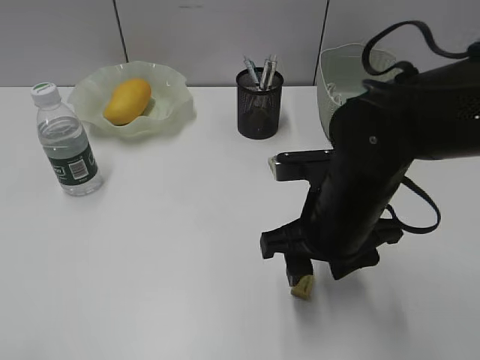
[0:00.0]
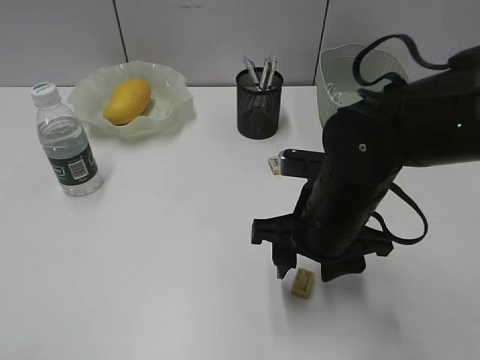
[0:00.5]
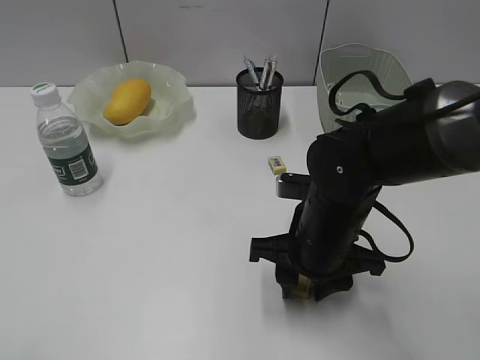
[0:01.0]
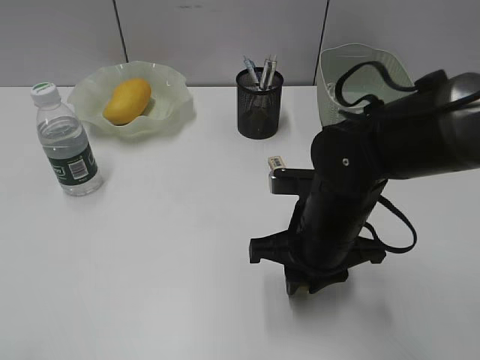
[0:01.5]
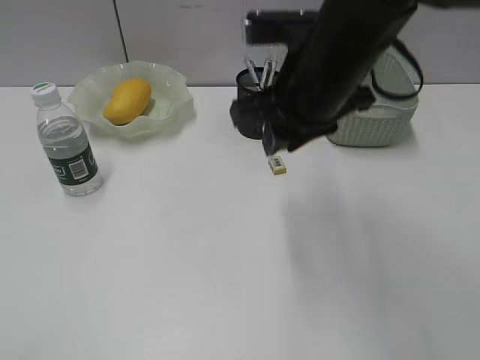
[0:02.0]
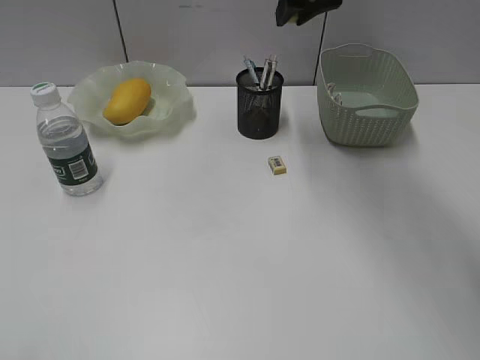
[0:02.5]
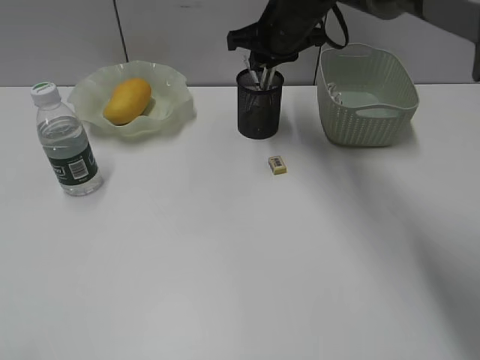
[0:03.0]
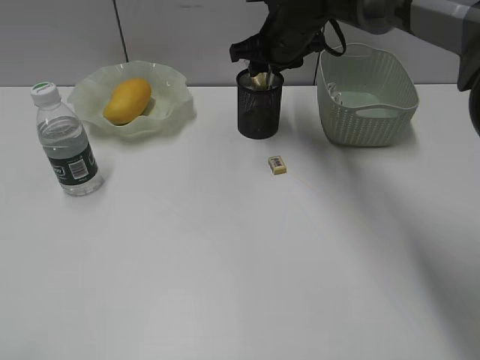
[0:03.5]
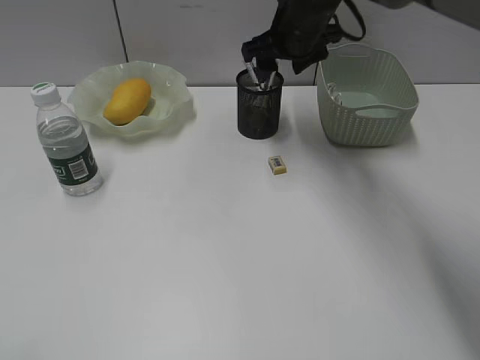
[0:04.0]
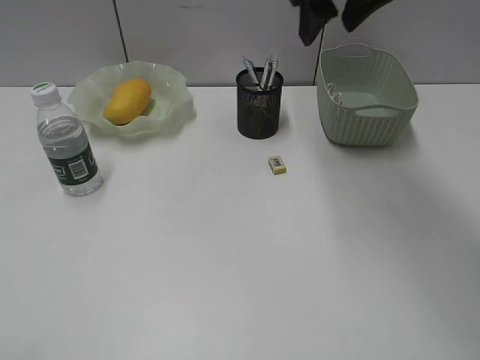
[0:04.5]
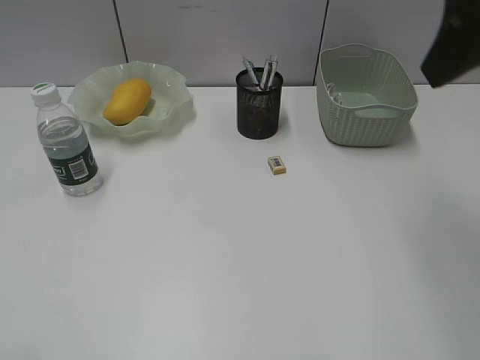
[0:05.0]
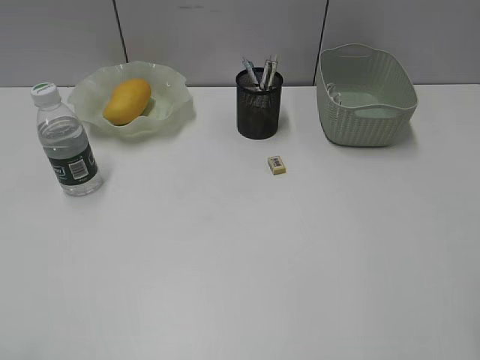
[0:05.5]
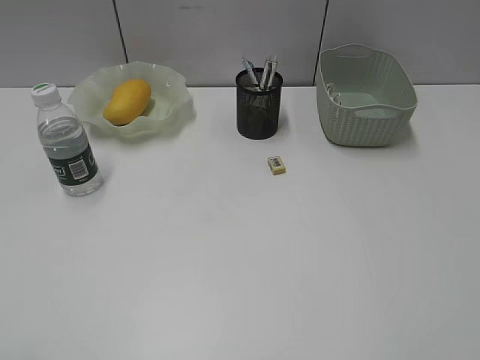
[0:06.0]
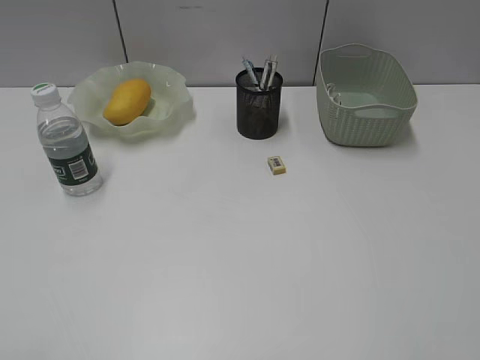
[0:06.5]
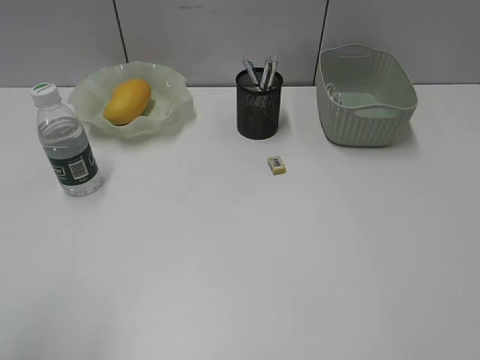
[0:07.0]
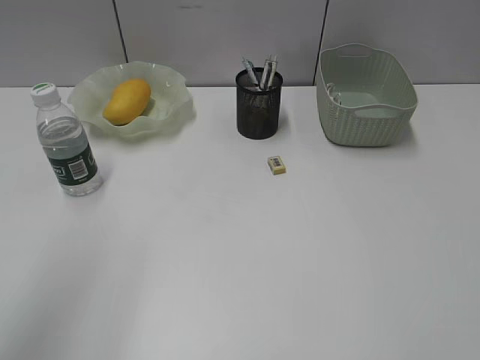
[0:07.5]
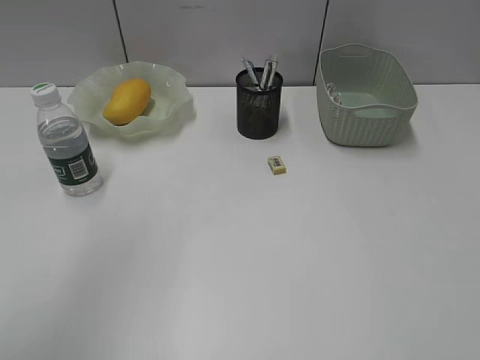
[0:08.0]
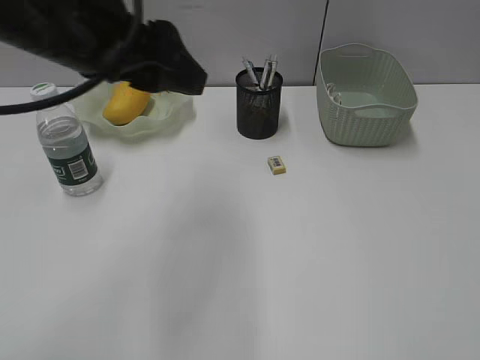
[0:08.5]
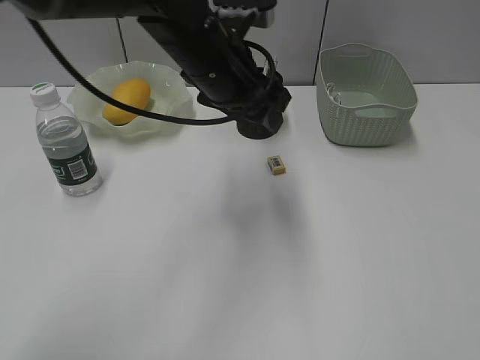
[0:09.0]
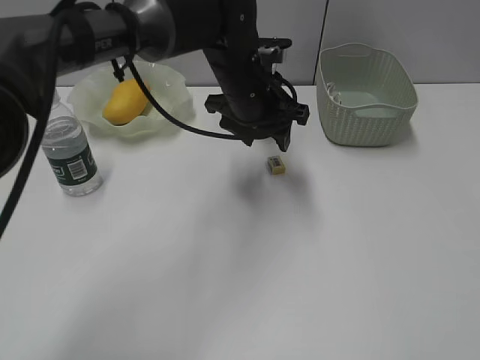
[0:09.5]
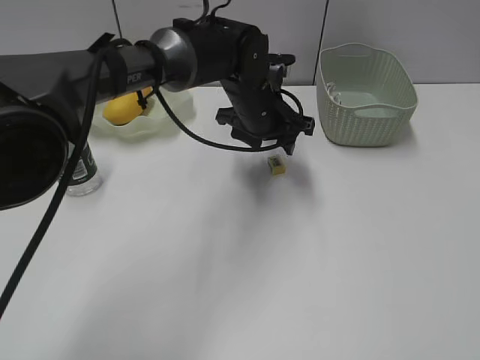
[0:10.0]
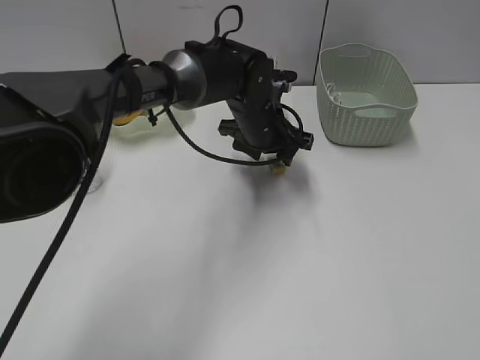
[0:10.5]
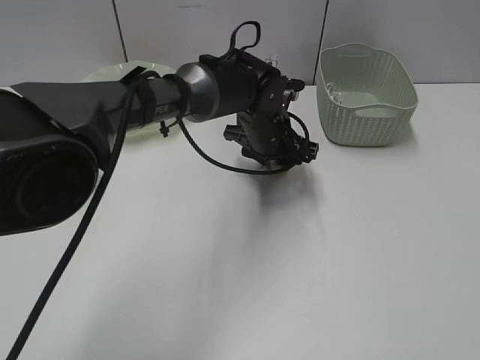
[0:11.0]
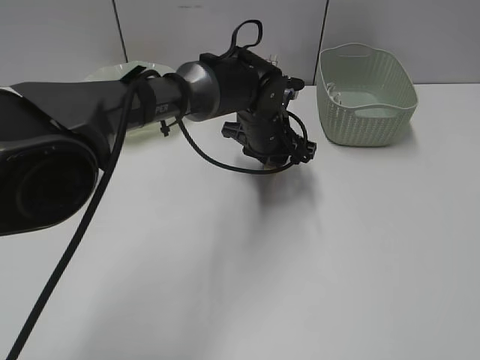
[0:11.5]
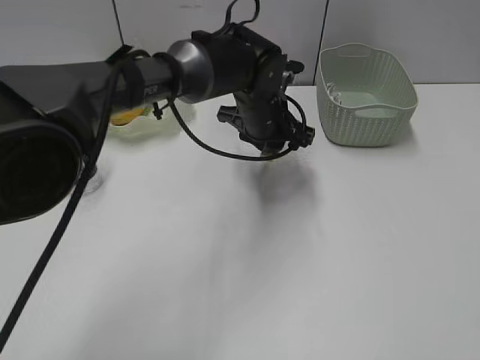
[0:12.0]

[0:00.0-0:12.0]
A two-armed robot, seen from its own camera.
Step, 0:01.5 to 0:03.5: Place the eraser in pen holder with right gripper.
Step, 0:04.0 to 0:11.5: Grasp the eraser with left gripper.
0:00.0 to 0:02.0: The right gripper goes roughly 10 cm upward and forward, and closes up.
0:02.0 to 0:04.0: The right gripper goes approximately 20 cm forward, and opens up.
0:04.0 to 0:06.0: The right gripper shifts roughly 50 cm backward and to the right.
0:06.0 to 0:08.0: The left gripper moves forward and upward, approximately 20 cm.
0:08.0 to 0:10.0: The left gripper moves to the right, downward and forward, about 40 cm.
0:10.0 to 0:12.0: The left gripper closes.

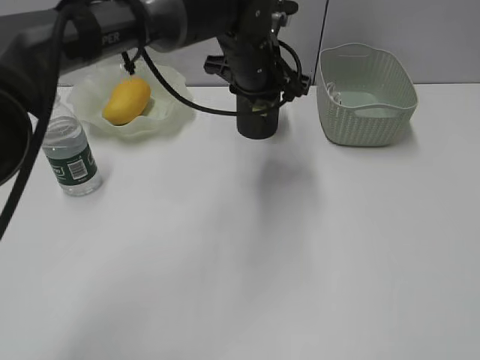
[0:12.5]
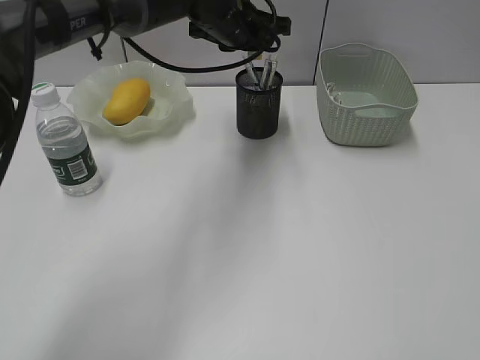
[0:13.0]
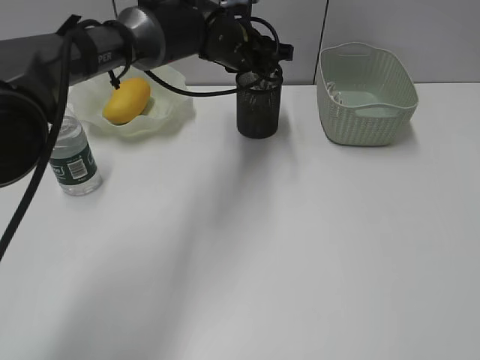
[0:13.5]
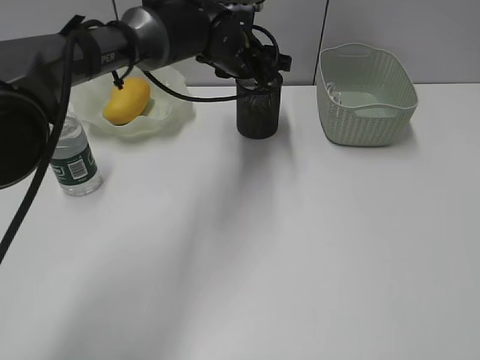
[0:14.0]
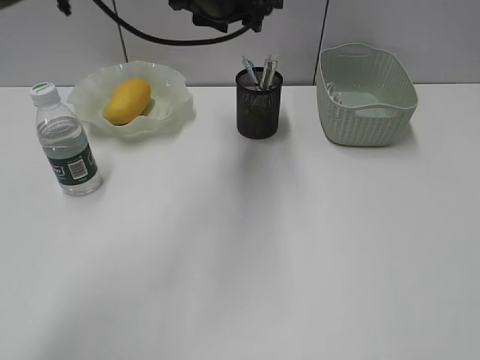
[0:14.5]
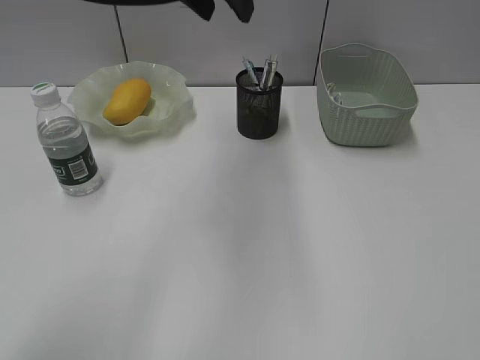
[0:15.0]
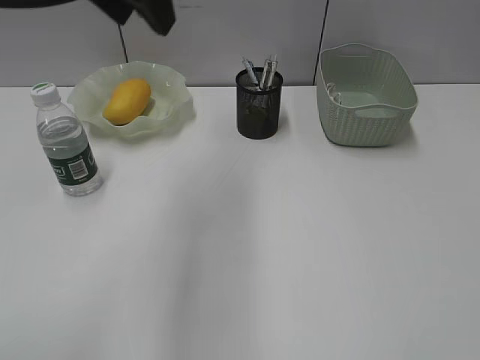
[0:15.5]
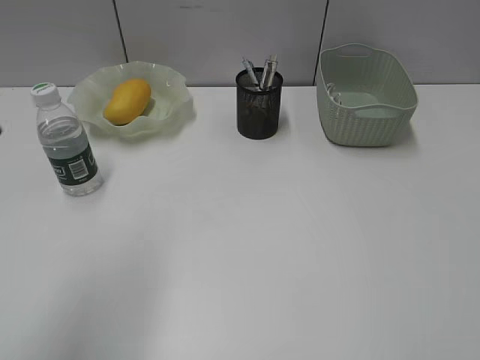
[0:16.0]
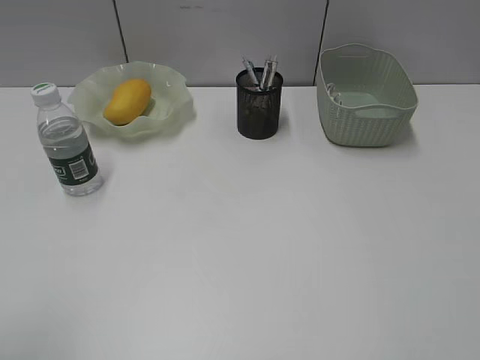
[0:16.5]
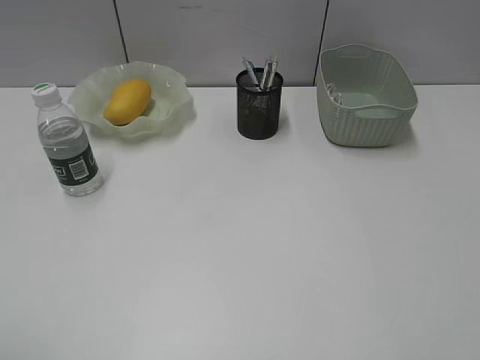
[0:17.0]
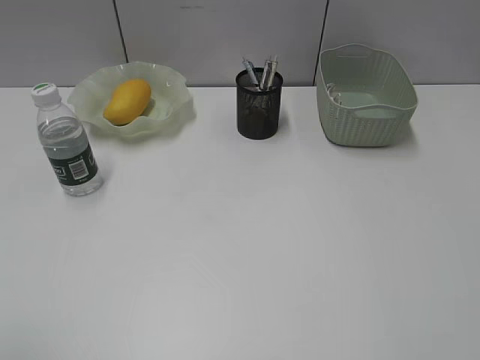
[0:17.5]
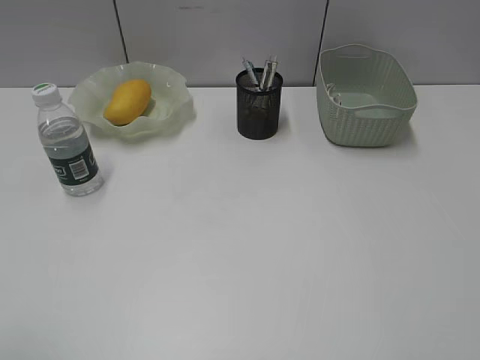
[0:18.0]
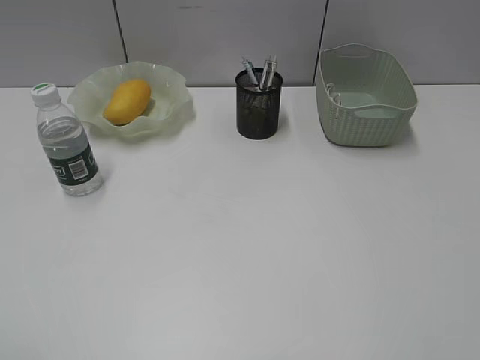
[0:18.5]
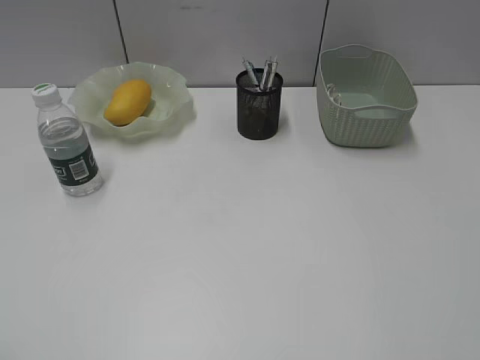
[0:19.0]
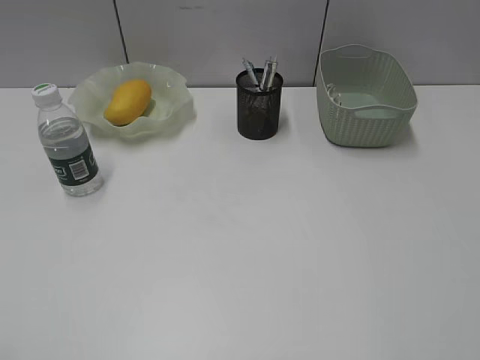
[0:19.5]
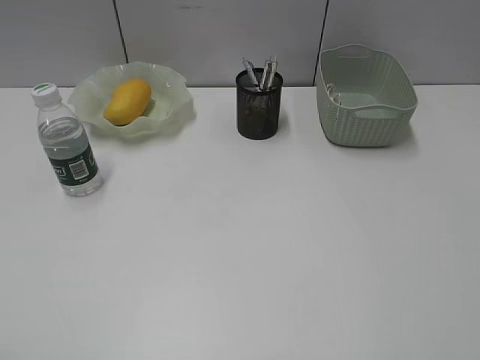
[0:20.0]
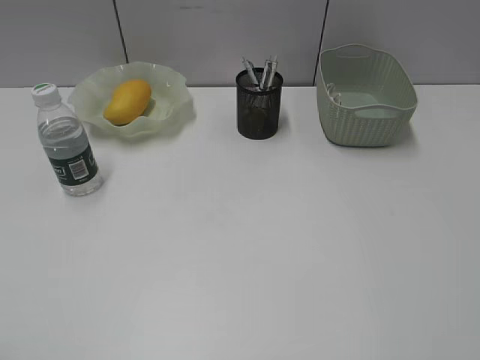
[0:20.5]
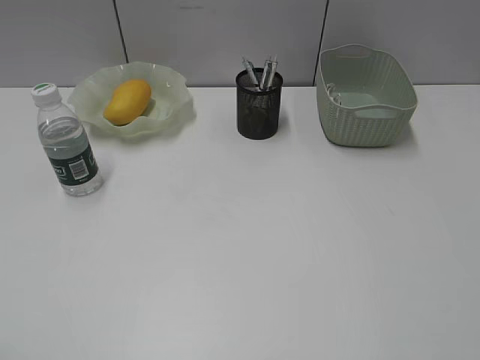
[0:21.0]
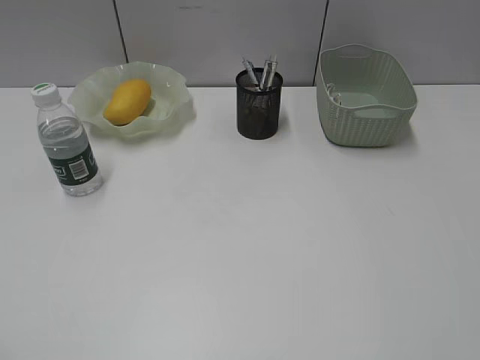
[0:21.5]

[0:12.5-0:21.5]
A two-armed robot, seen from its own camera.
0:12.5 to 0:14.5: The left gripper shifts some 5 cm upward, and opens.
0:14.5 to 0:17.0: The left gripper is displaced backward and to the left by about 50 cm.

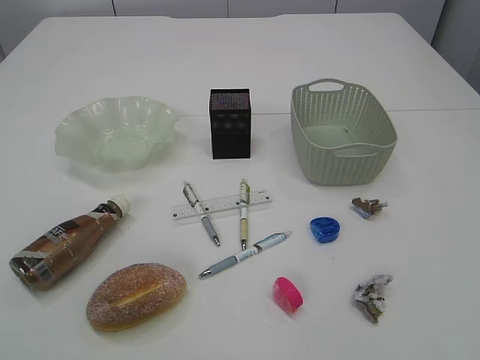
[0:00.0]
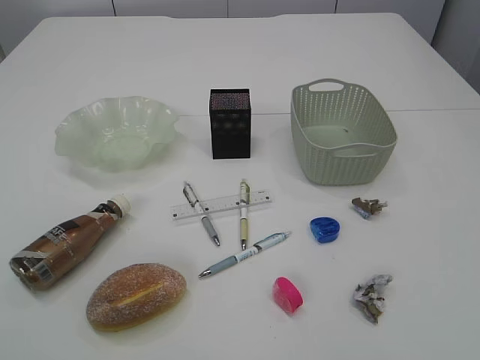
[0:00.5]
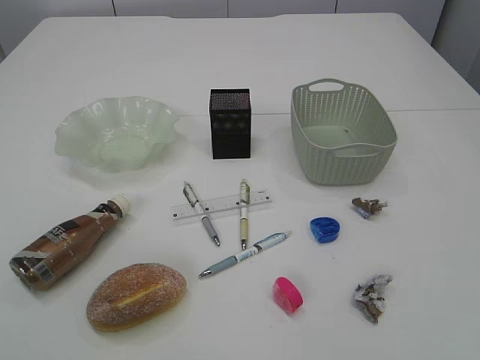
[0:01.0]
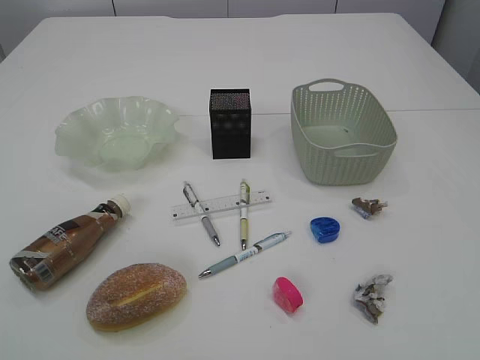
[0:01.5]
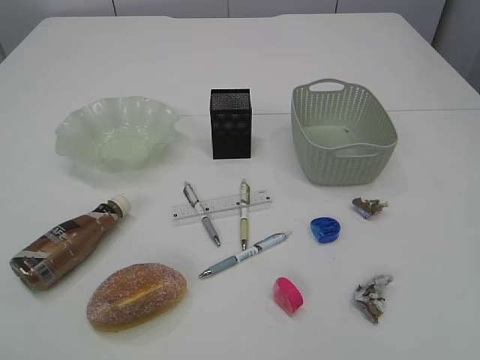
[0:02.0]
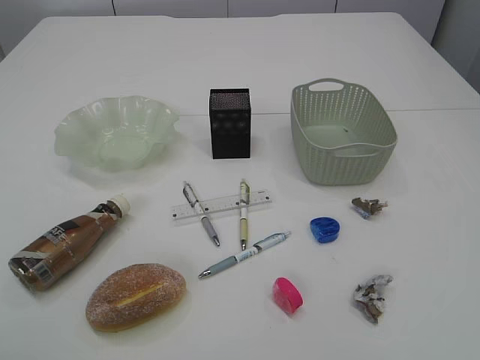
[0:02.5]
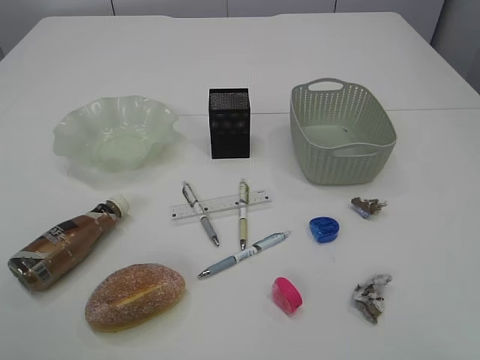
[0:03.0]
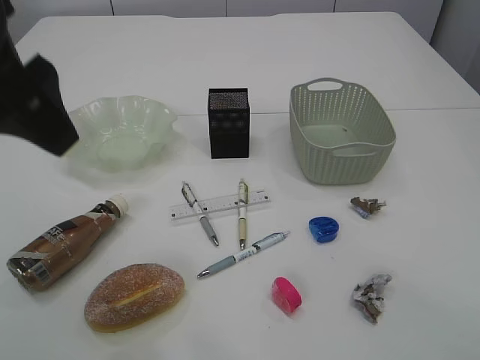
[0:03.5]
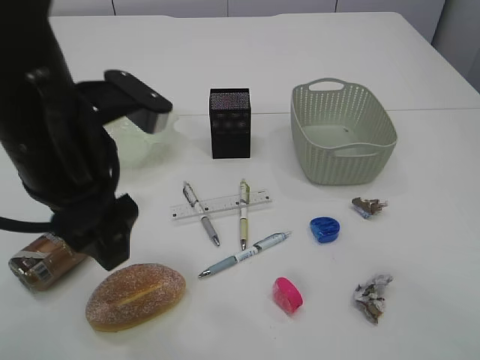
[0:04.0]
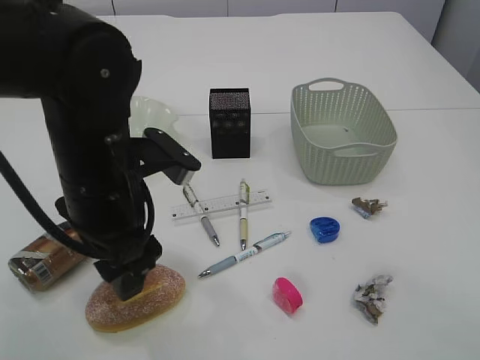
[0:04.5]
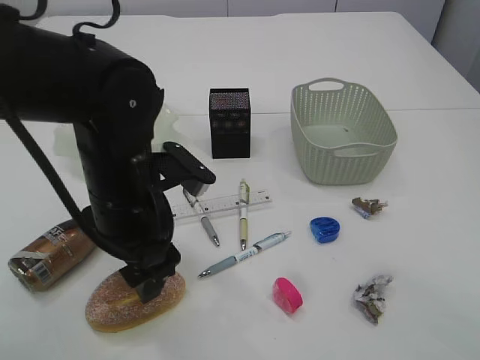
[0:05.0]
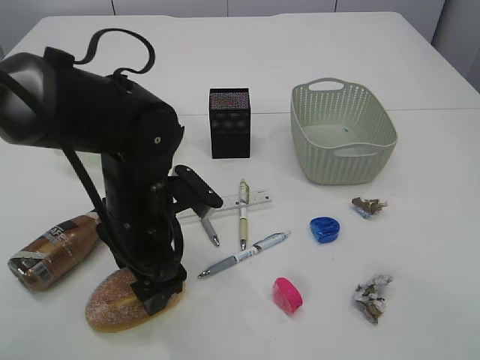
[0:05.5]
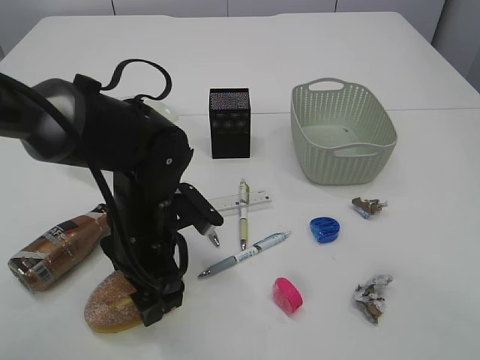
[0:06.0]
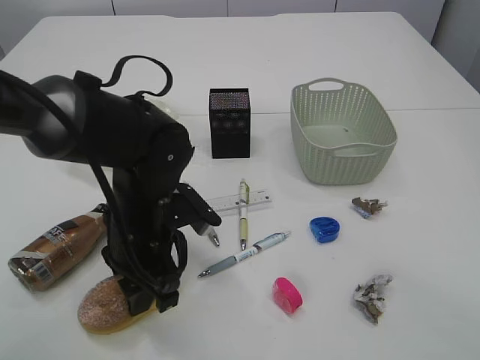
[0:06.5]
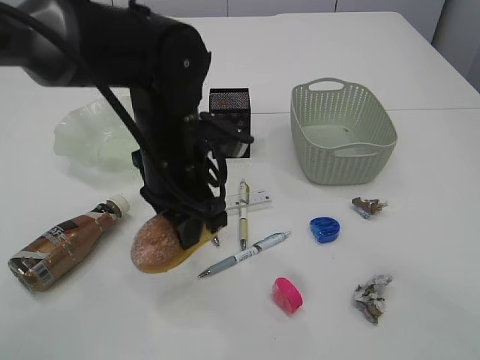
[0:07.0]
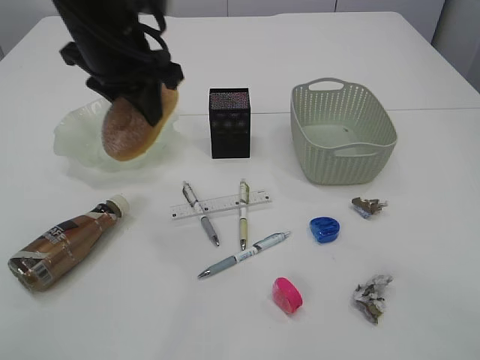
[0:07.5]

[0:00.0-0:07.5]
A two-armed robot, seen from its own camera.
0:02.0 to 0:04.0: The left gripper heads forward, to the right and downward, covering some 30 cm, while the right gripper is displaced forward by about 15 cm.
0:04.0 to 0:05.5: The left gripper is displaced downward by about 15 cm.
0:05.5 to 0:07.5: The left gripper travels upward and forward by approximately 15 cm, and closes up.
